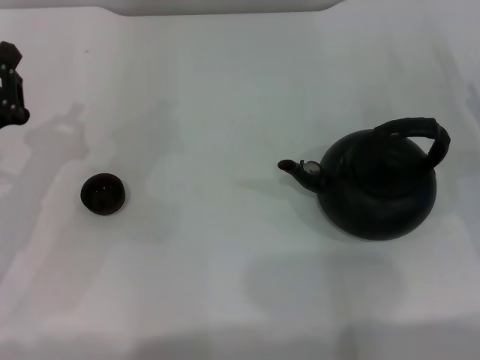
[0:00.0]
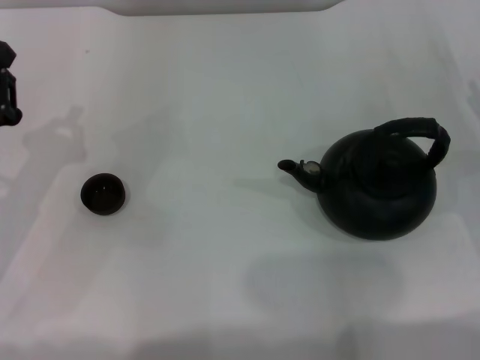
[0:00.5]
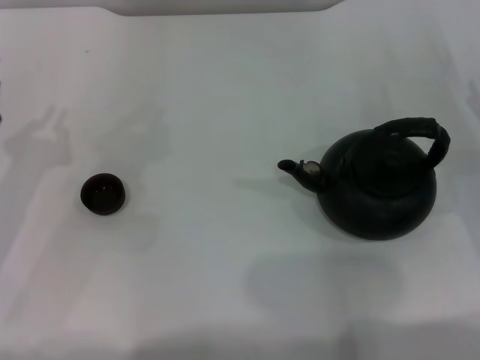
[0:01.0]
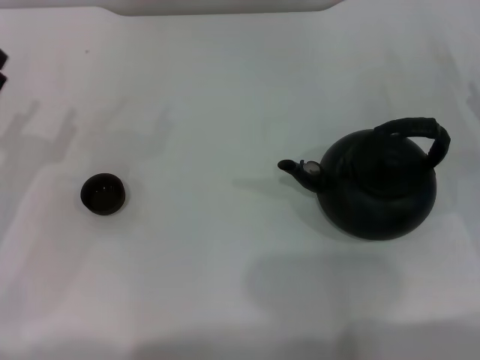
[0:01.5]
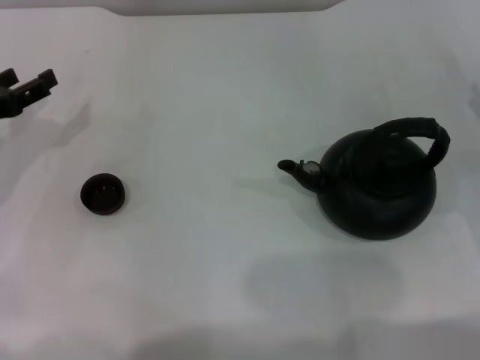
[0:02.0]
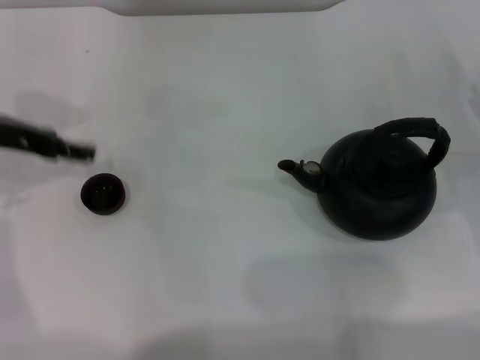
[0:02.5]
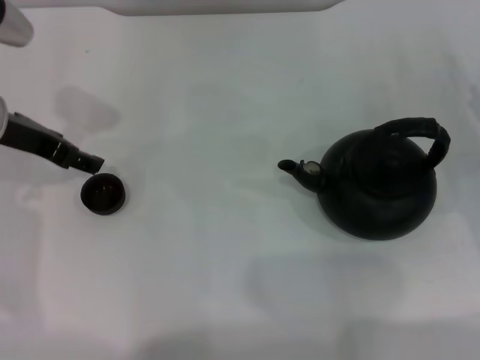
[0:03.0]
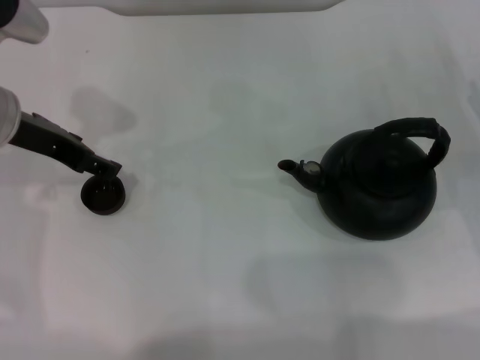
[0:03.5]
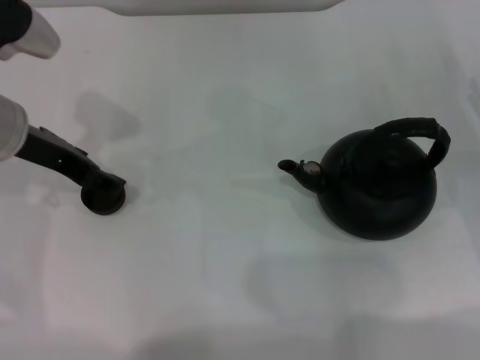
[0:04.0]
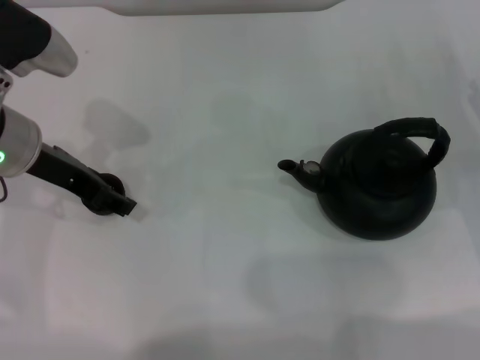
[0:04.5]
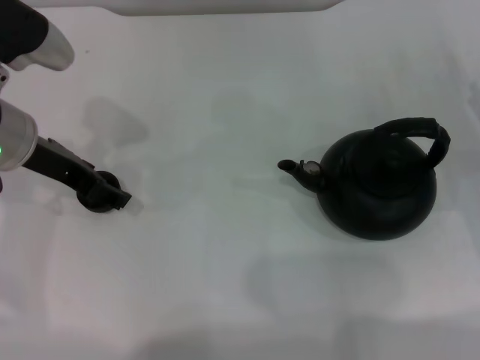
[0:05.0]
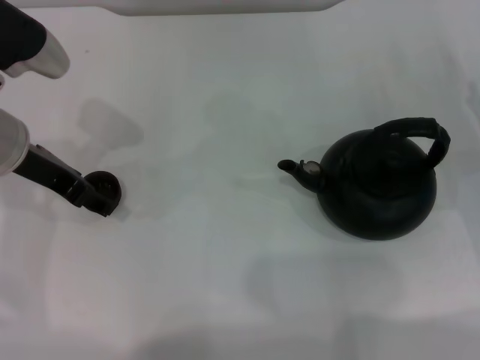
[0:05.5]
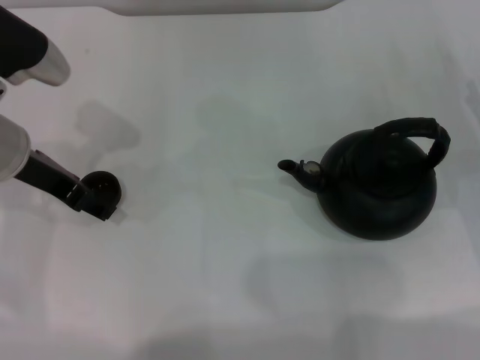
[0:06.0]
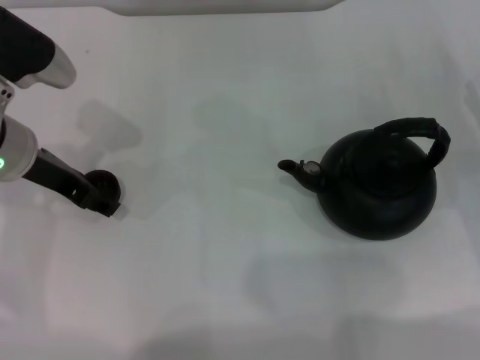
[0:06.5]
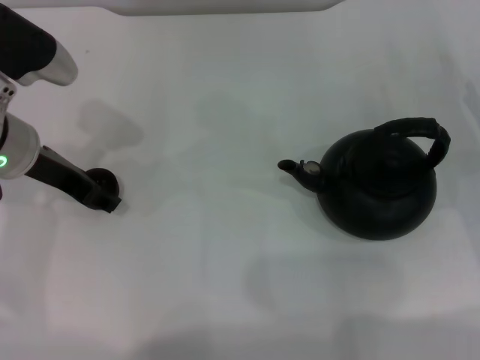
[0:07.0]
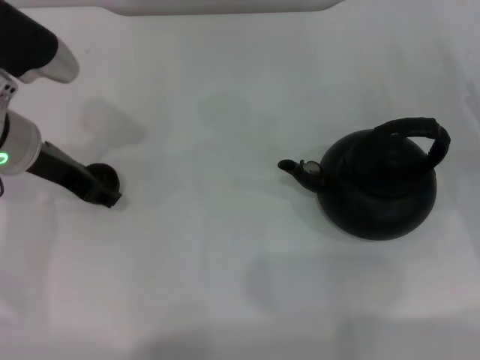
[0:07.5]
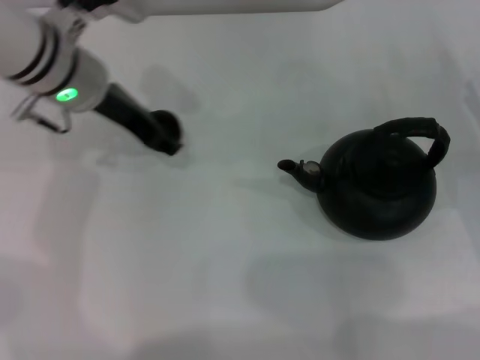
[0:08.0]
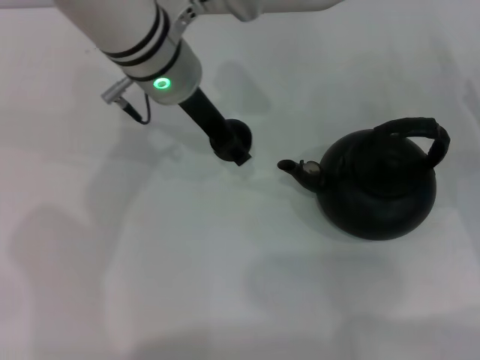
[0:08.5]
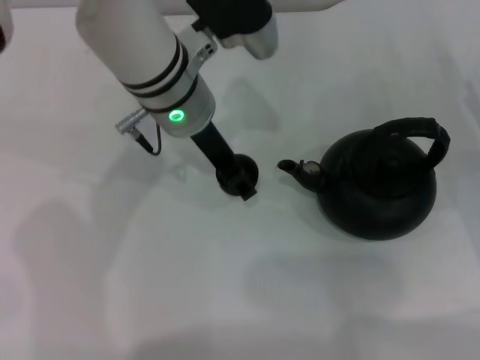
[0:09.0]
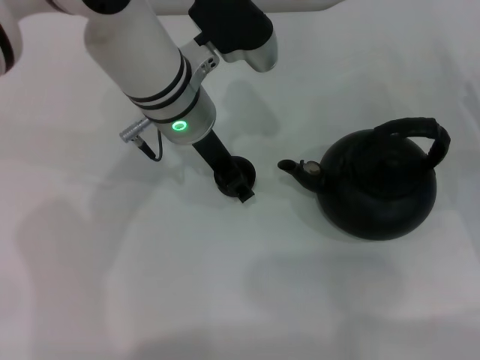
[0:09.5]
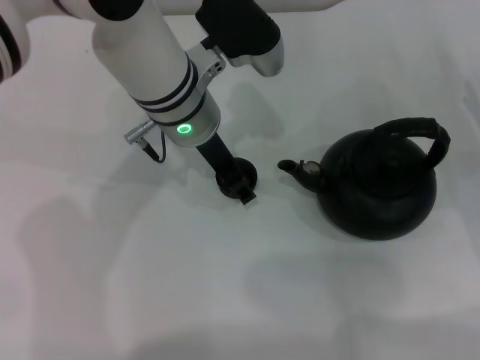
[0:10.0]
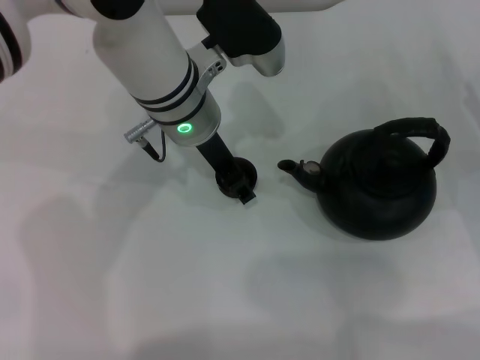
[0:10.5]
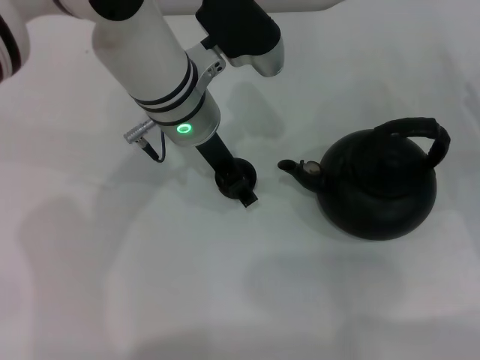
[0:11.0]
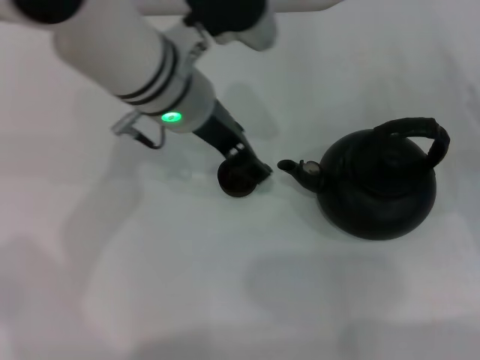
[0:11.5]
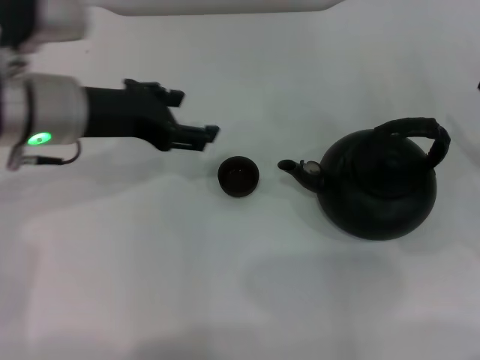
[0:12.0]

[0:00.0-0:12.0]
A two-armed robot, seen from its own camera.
Task of the whole recording: Grasp the handle of the teapot with one hand and pour tea into the teacup.
Step, 0:00.0 to 0:07.0: Pick up the teacup with the left gripper.
Step, 0:08.0 to 0:11.5: Place the teacup in the center of view with the left gripper.
0:00.0 to 0:02.0: The left gripper is displaced forward by approximately 5 cm, and opens its fingers.
0:02.0 to 0:04.0: The left gripper shifts roughly 15 cm to the right and upward.
0:04.0 to 0:06.0: The grippers move only a little.
0:06.0 to 0:08.0: The left gripper is displaced to the right and forward by some 10 cm.
0:08.0 to 0:10.0: The left gripper moves to the right, roughly 10 cm.
0:10.0 to 0:12.0: The left gripper heads to the left, covering about 15 cm.

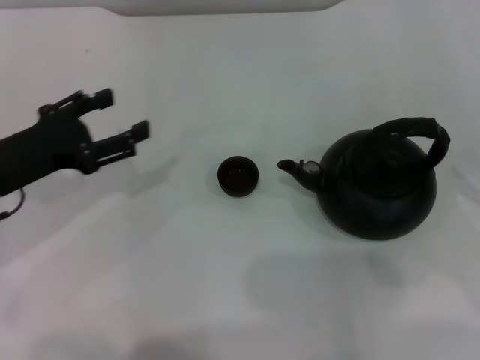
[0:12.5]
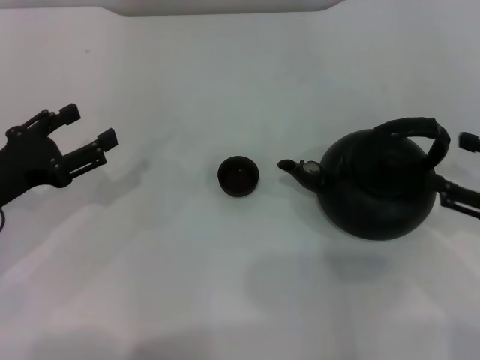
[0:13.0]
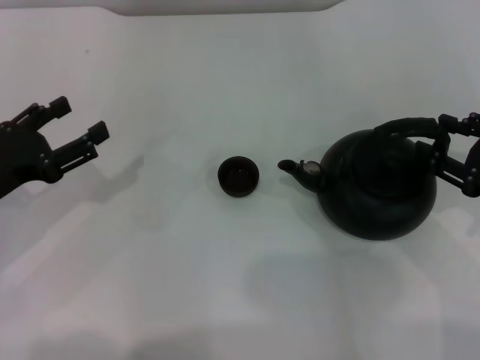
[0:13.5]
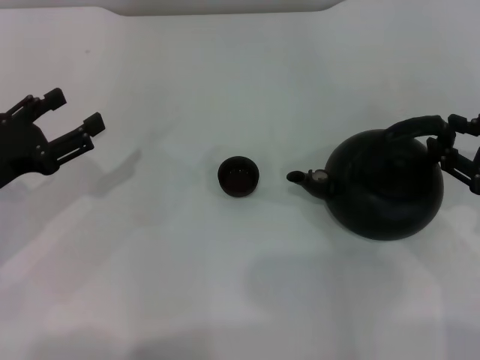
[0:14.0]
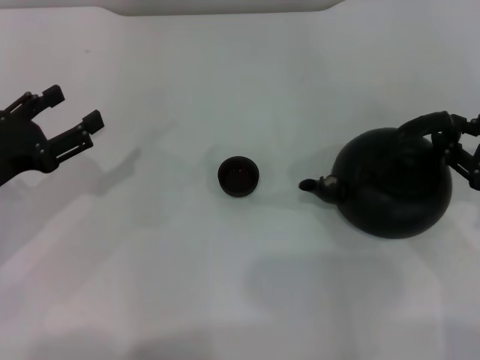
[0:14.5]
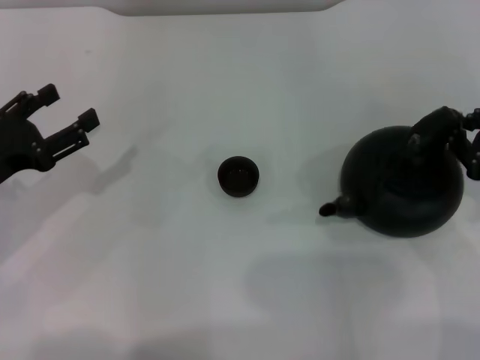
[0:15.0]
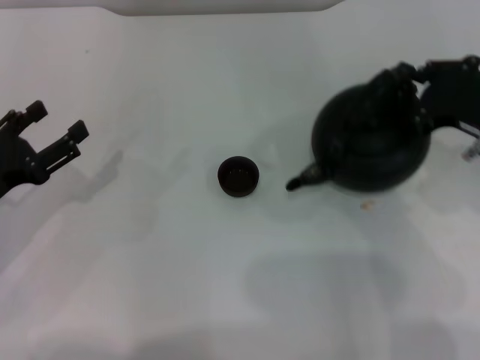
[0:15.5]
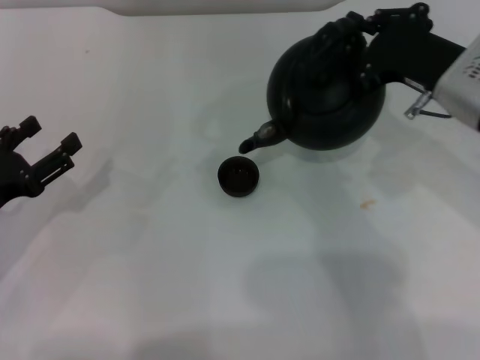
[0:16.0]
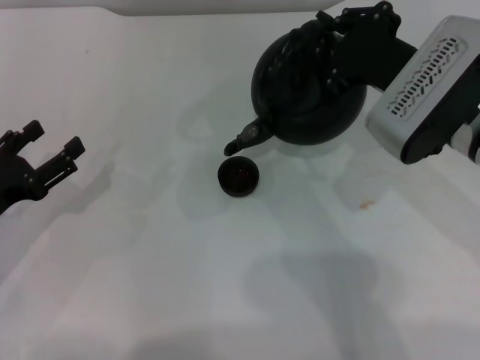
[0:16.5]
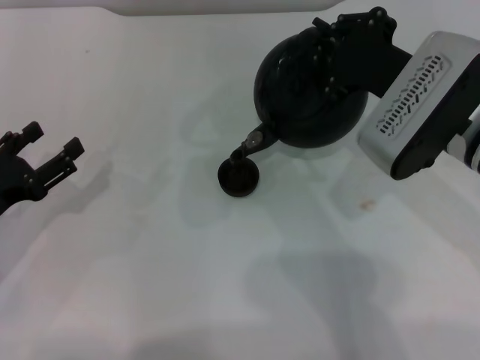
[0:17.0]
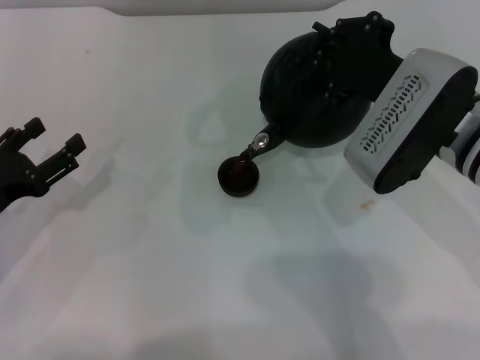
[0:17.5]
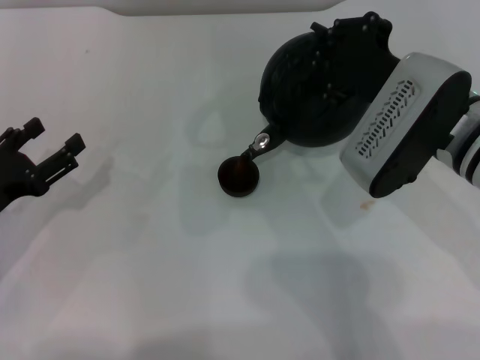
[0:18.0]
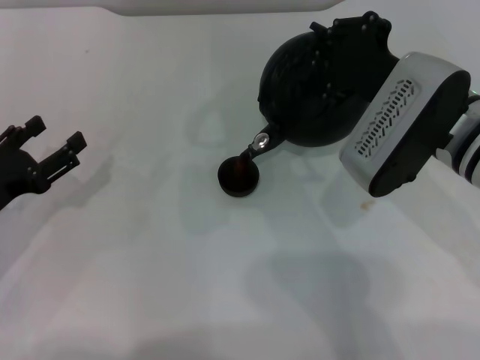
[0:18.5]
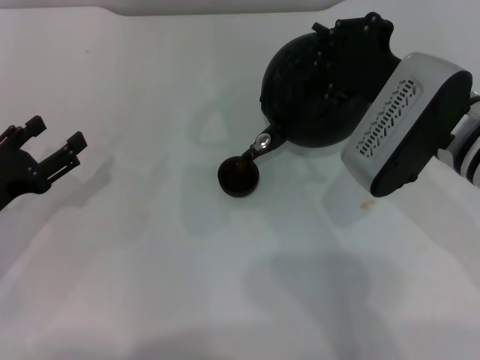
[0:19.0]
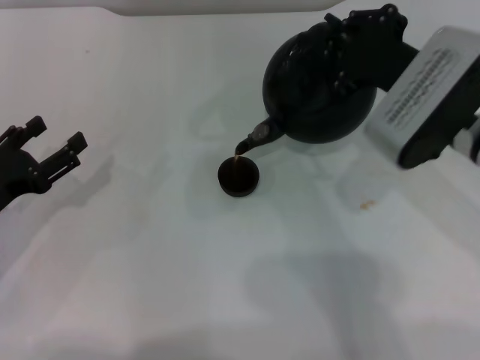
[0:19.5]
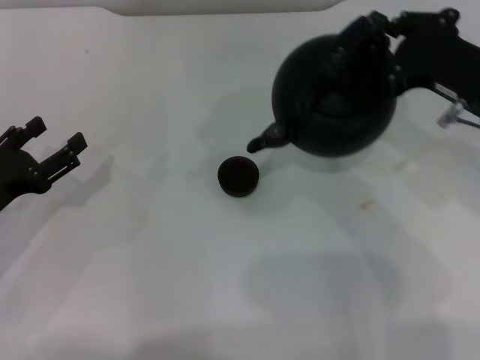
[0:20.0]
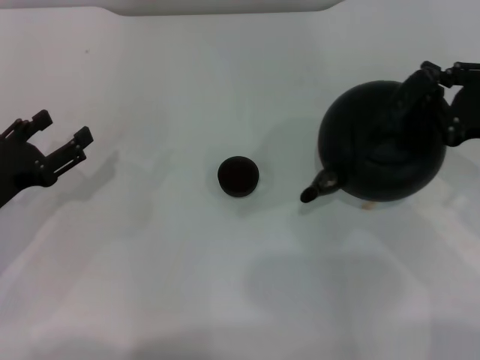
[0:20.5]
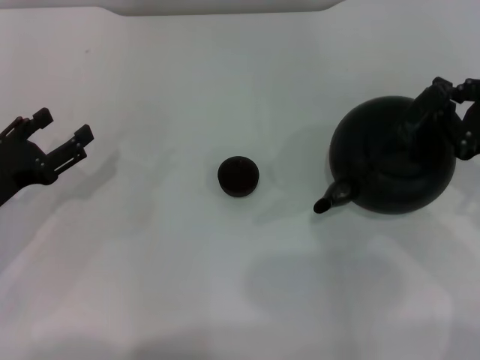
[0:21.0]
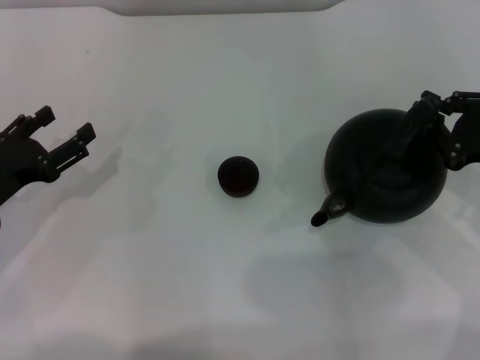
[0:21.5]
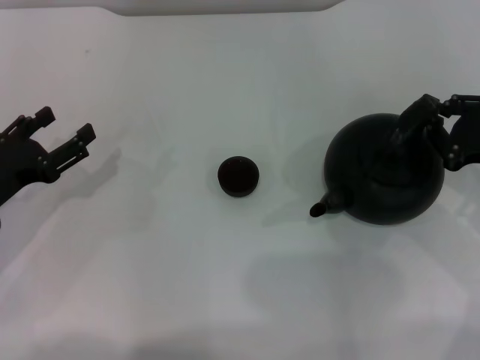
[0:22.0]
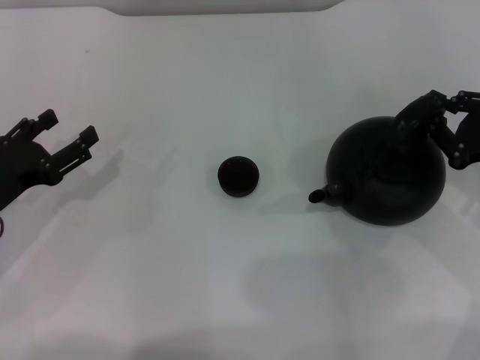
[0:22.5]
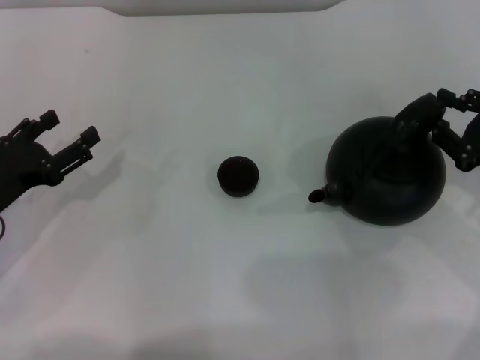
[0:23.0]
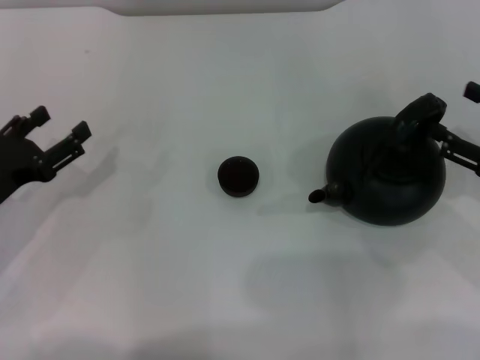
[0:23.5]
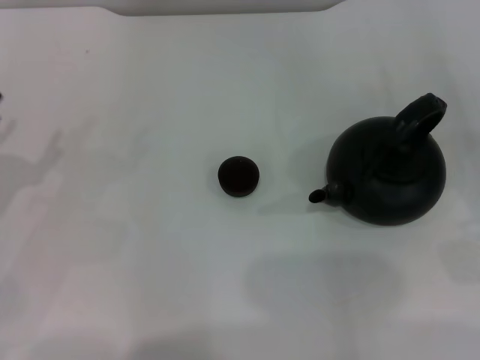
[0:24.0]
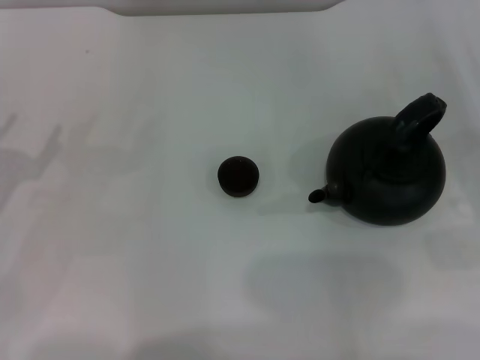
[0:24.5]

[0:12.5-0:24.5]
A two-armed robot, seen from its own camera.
Task of the whole recording: Grasp the handle of the teapot with one hand and pour tea into the teacup.
Step, 0:12.5 to 0:15.0: Pick up the teapot with the right gripper.
Step, 0:15.5 to 0:19.5: Pour tea into the teacup with the right gripper.
Step, 0:20.0 to 0:23.5: Put down the teapot with the right gripper.
0:12.5 to 0:14.5: The right gripper shifts by approximately 5 cm, and closes.
0:14.5 to 0:16.5: The right gripper goes roughly 15 cm to the left and forward, and closes up.
0:16.5 to 0:18.5: The grippers stay close to where they were, moving slightly.
0:18.5 to 0:20.5: The right gripper is displaced to the right by approximately 15 cm.
0:20.5 to 0:22.5: The grippers move only a little.
0:22.5 to 0:24.5: The left gripper moves roughly 5 cm; the right gripper is displaced to the right by roughly 5 cm, and opens.

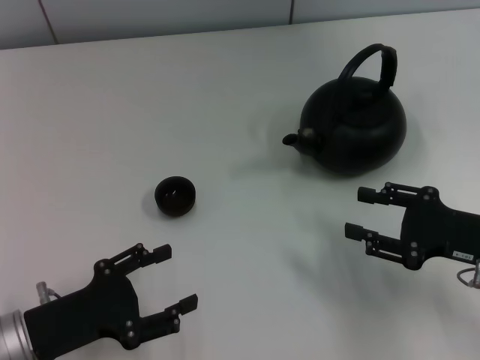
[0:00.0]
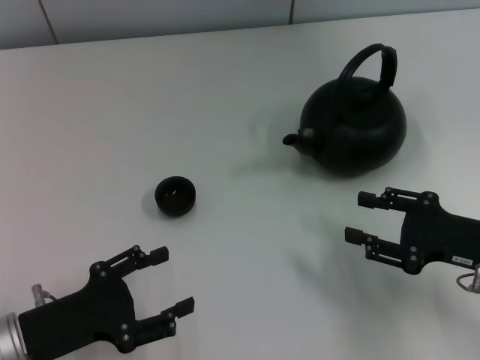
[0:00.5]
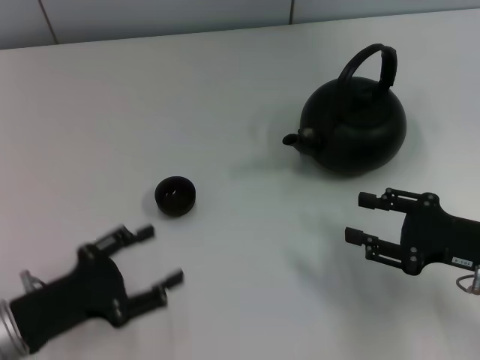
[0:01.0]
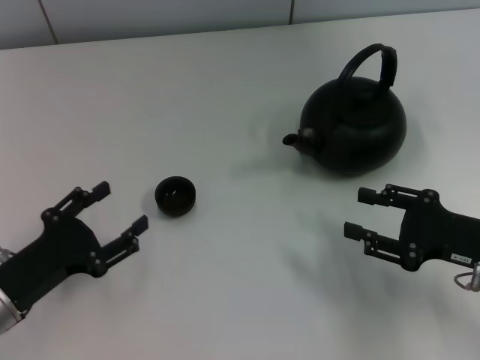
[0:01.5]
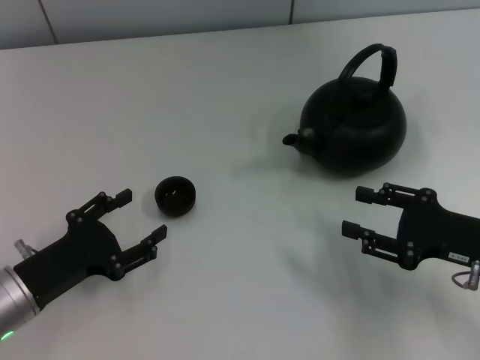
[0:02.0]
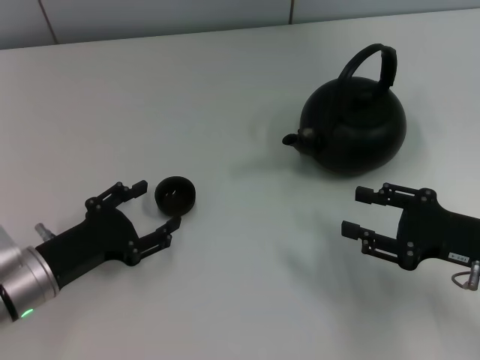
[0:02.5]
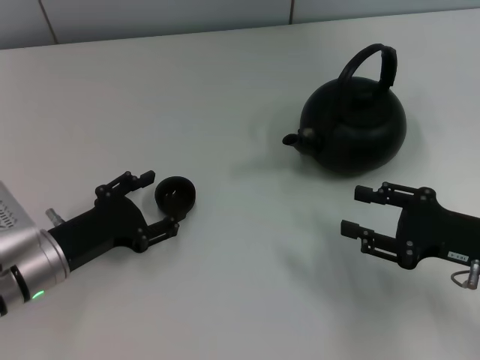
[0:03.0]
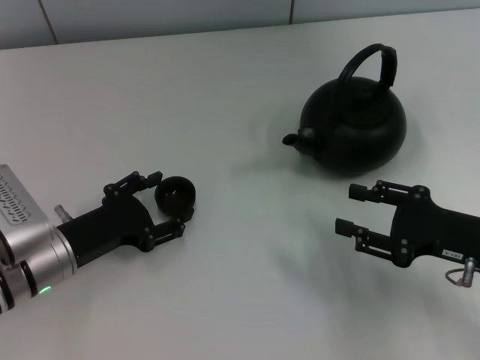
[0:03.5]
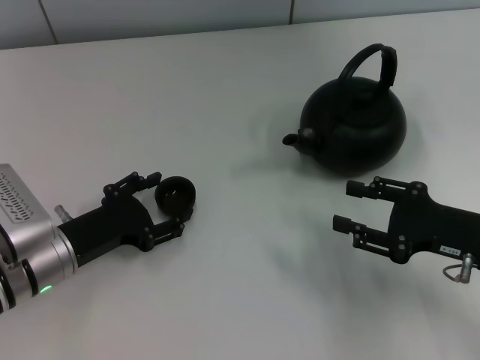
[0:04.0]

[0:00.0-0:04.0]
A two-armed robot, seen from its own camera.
Task of the whole recording: Grasp the handle of the teapot with one hand and pour tea into the teacup.
0:02.0 to 0:04.0: The left gripper changes place by approximately 5 cm.
